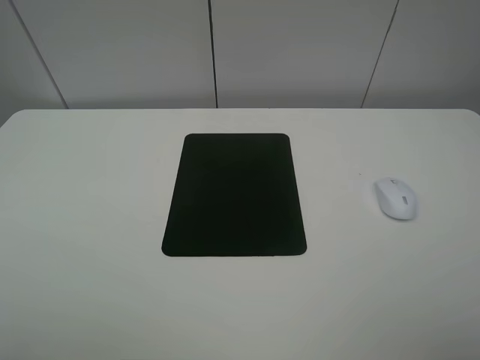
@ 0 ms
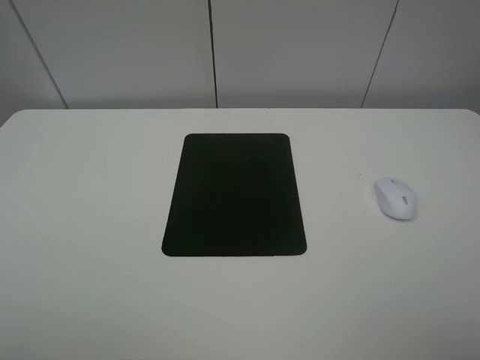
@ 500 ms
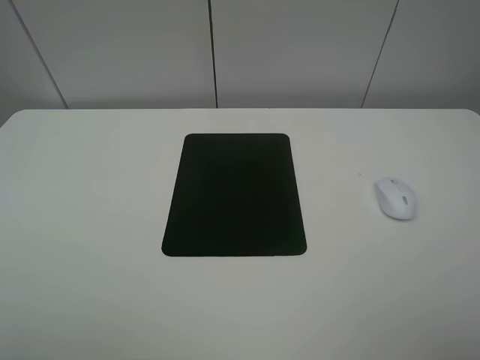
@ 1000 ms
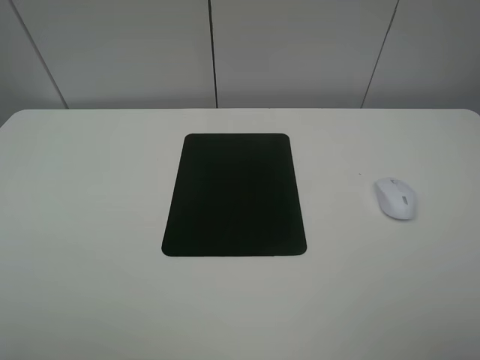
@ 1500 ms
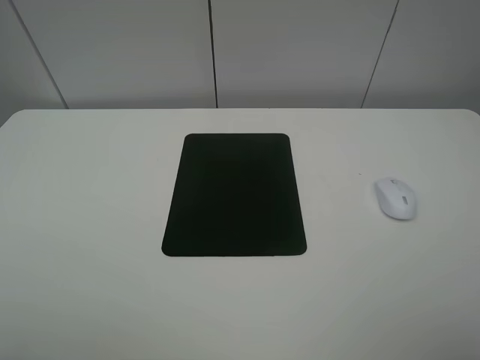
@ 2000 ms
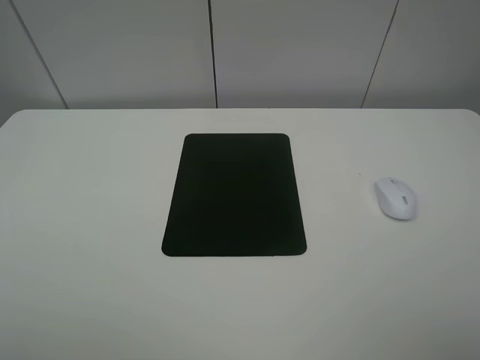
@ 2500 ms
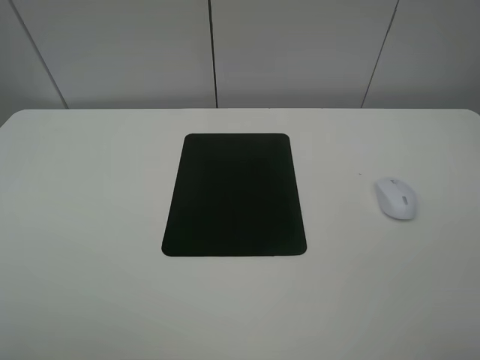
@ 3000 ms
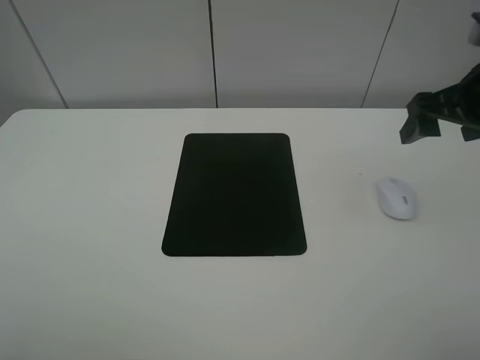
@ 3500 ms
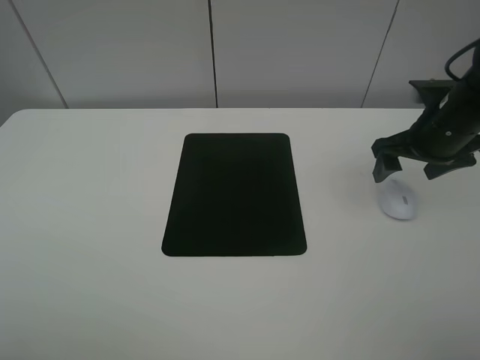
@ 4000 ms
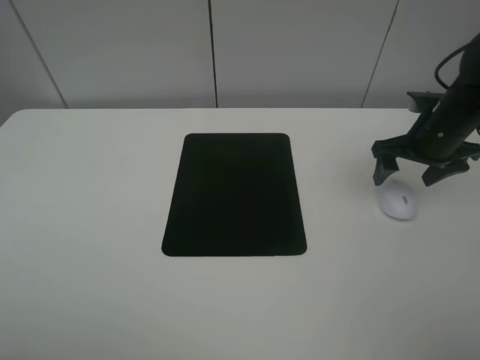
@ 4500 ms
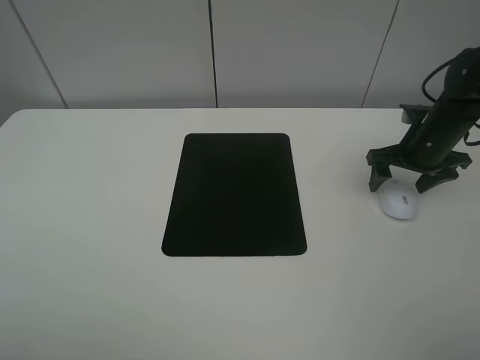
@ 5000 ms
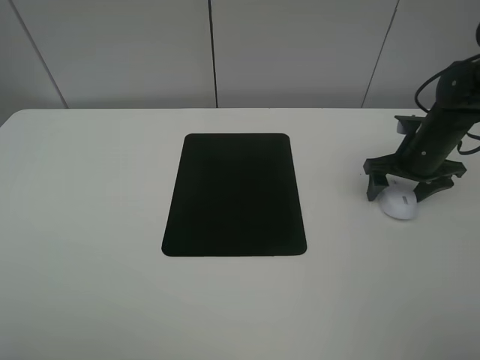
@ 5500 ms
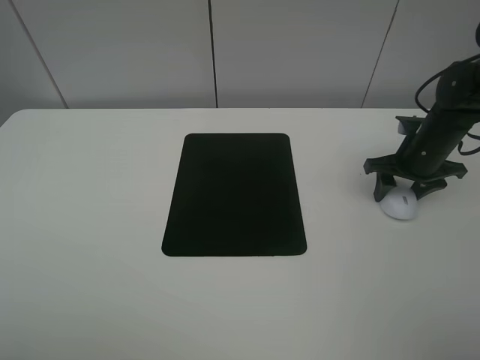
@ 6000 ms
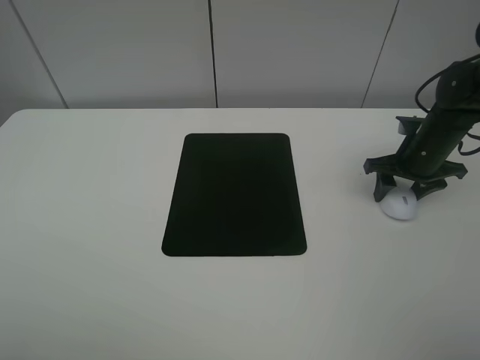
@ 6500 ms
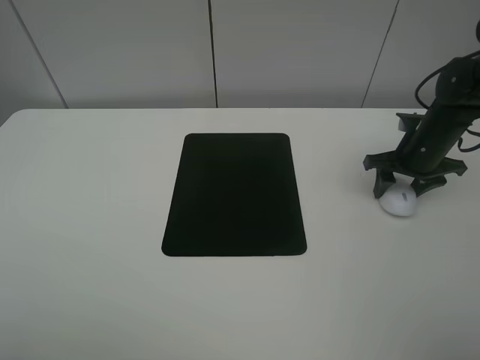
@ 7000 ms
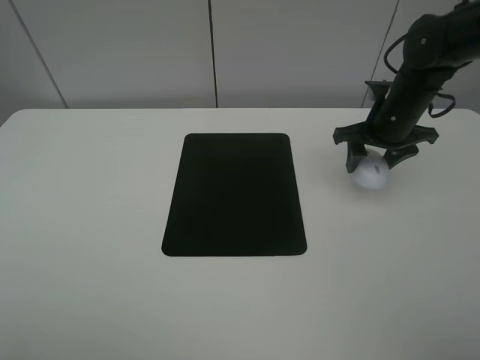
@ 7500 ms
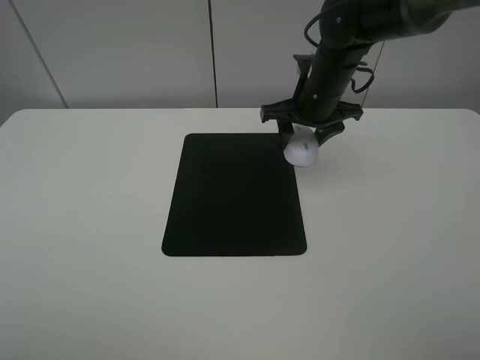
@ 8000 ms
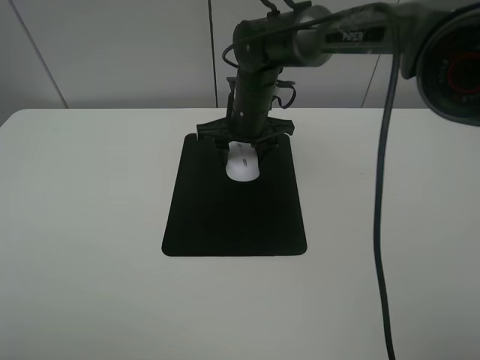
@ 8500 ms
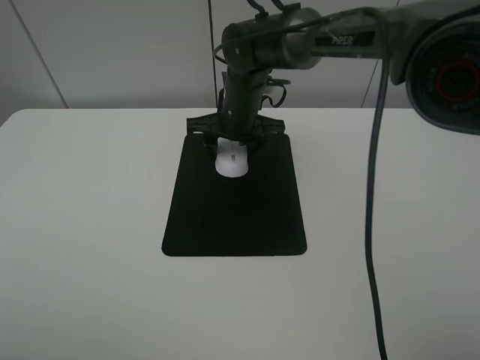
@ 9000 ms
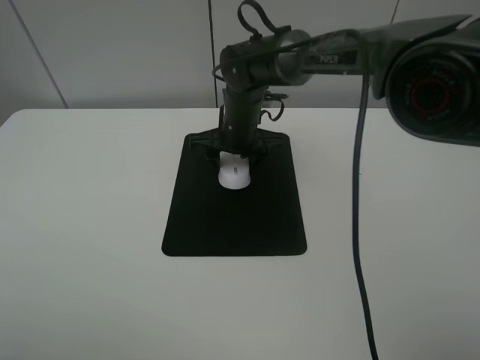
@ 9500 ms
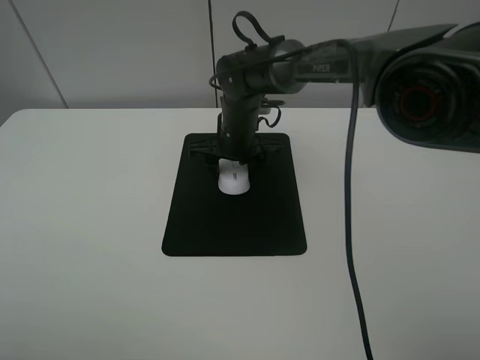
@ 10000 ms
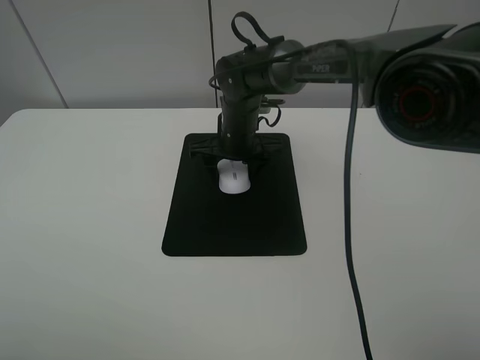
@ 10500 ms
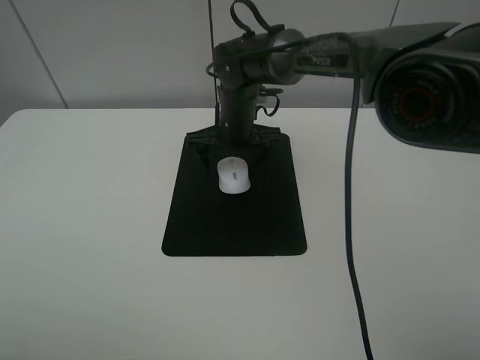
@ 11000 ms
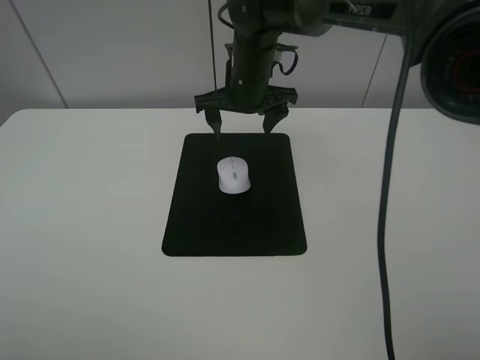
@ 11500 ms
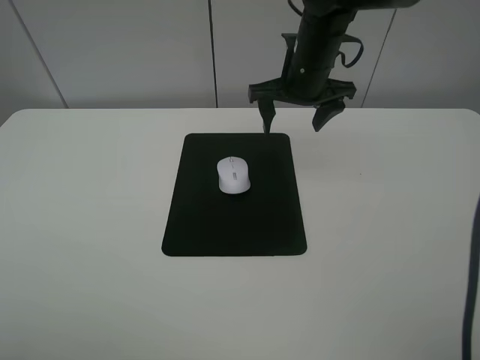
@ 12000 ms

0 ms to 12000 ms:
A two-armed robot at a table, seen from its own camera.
Step, 0 ms to 6000 ms: Grasp the mouse with the right gripper.
Step, 6500 ms to 10500 ms: Place the mouse on the mouse mat with the right gripper.
0 ms to 2000 ms: Both grippers stay put.
2000 ms to 4000 ms: The right gripper travels forward by about 30 cm.
4000 ms to 6000 ms: The right gripper shifts some 5 cm downward, and closes up.
6000 ms to 8000 ms: The right gripper moves to the left and upward, approximately 20 cm.
8000 ms to 10000 ms: The right gripper heads to the left and downward, covering approximately 15 cm.
10000 ms to 12000 ms: The right gripper goes about 15 cm to the right and upward, and opens.

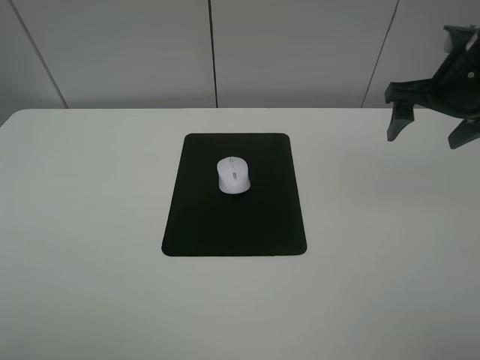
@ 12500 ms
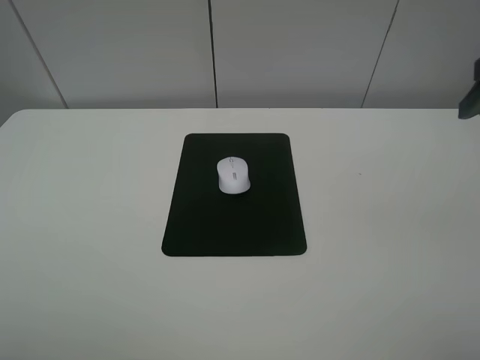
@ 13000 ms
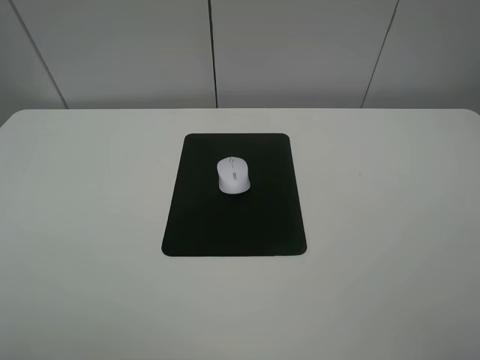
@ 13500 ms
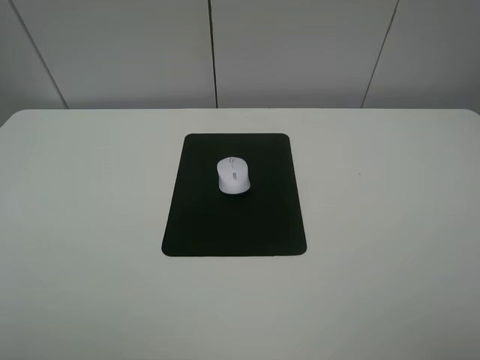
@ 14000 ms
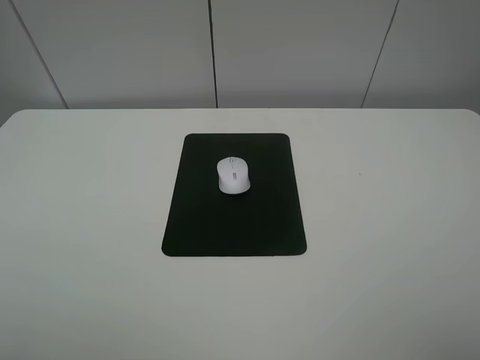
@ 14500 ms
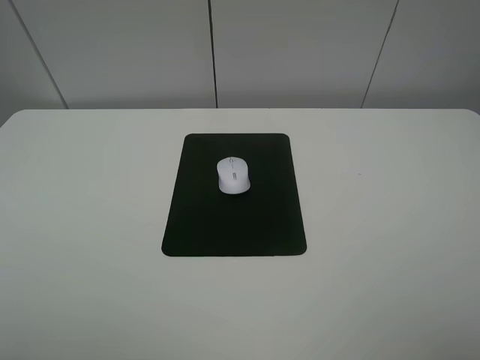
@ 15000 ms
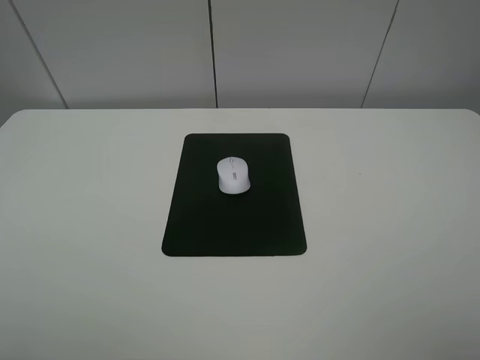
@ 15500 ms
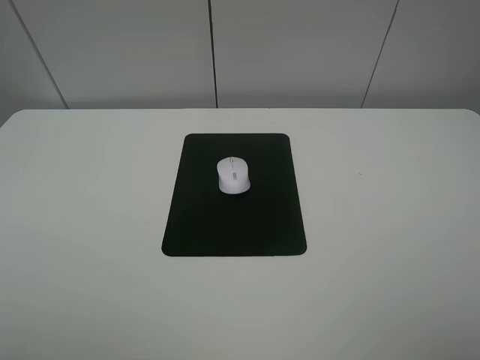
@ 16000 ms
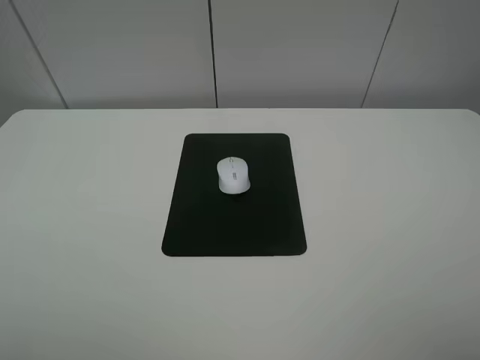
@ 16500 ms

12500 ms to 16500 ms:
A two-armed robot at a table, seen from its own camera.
12500 ms to 14500 ms: The right gripper moves backward, about 30 cm.
